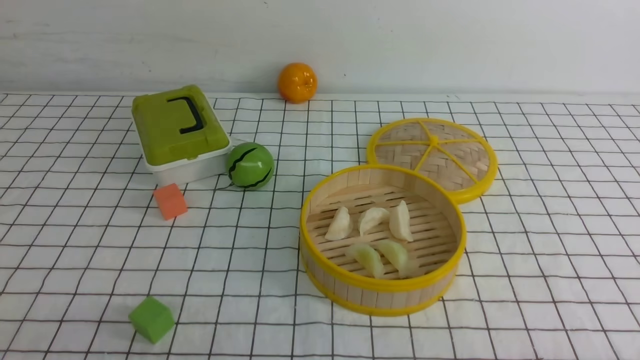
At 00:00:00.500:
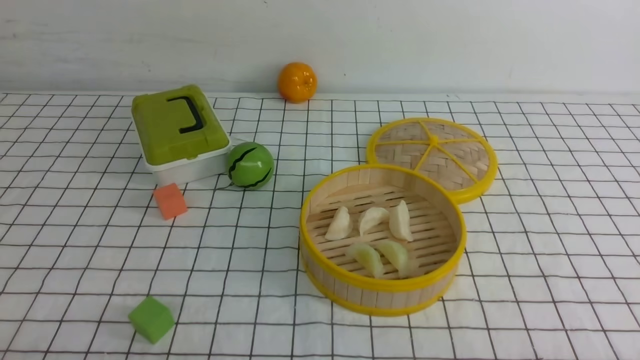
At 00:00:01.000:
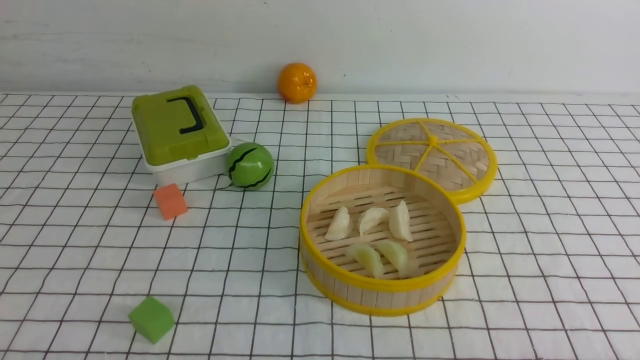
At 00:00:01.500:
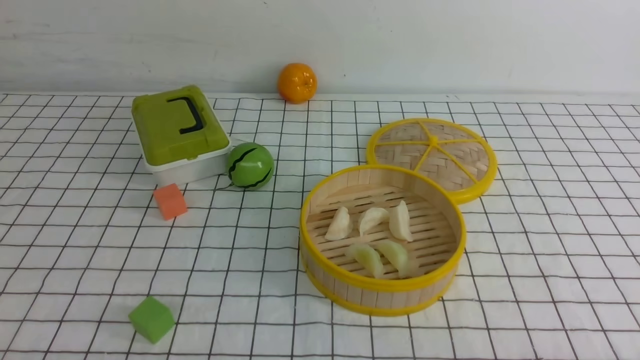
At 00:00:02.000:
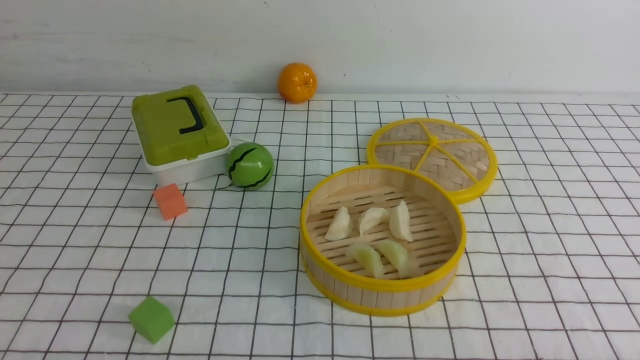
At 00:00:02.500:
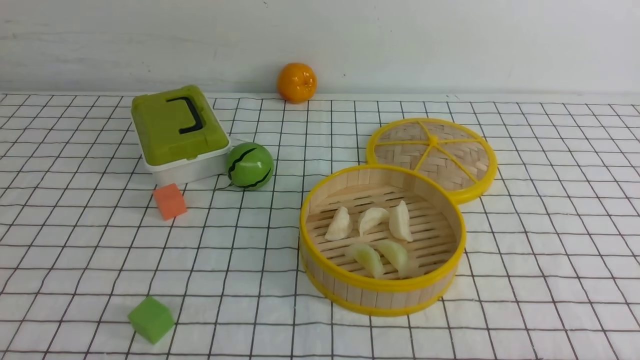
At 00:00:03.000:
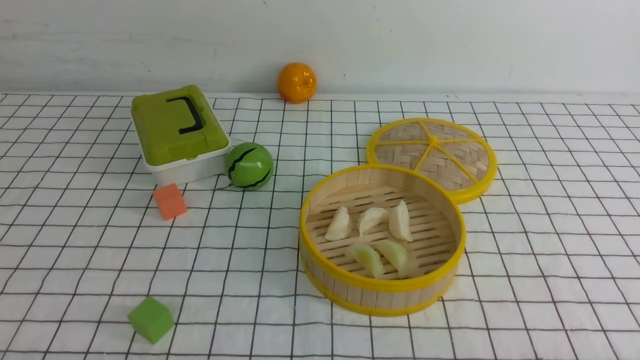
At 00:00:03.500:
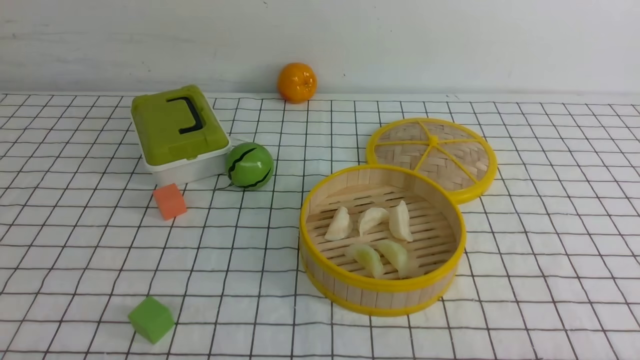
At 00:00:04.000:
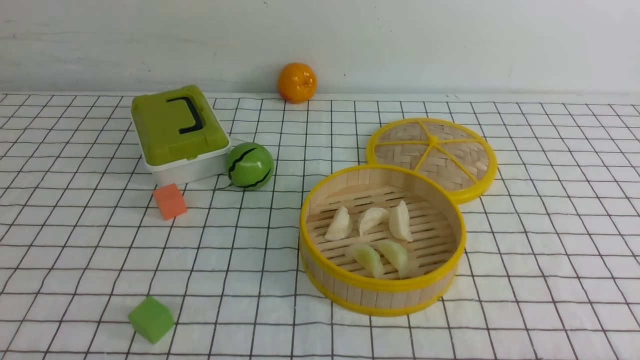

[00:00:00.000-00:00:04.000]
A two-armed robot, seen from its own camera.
Task of the whole recording: put the dumplings into the steamer on the table with the white tablecloth.
00:00:02.000 to 00:00:04.000: Both grippers stay about where they are.

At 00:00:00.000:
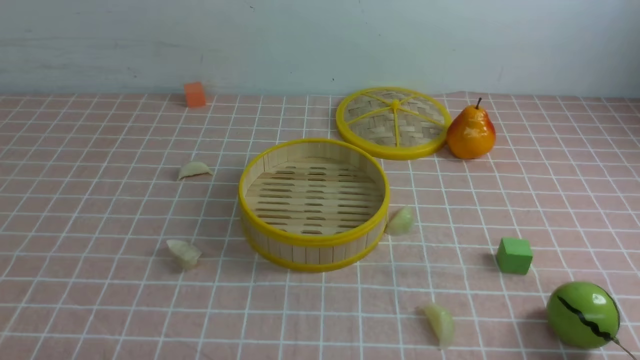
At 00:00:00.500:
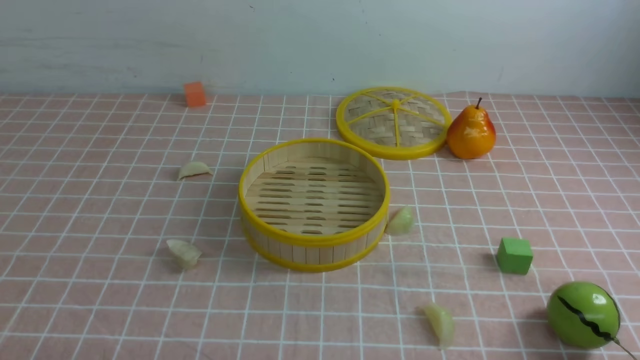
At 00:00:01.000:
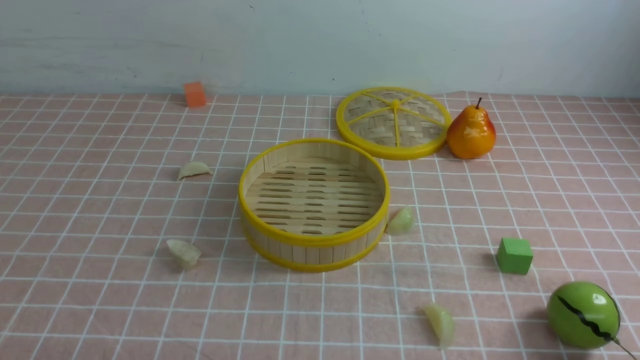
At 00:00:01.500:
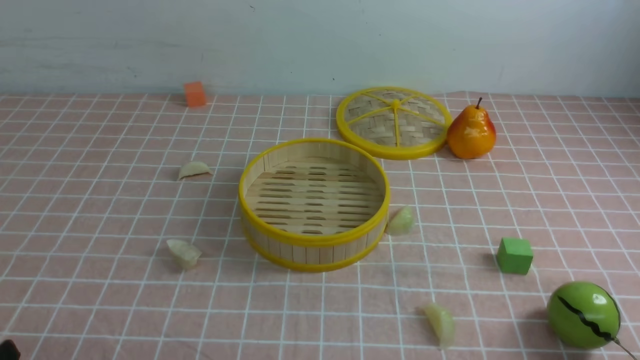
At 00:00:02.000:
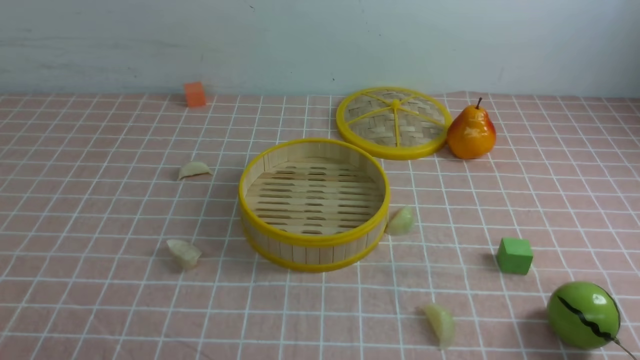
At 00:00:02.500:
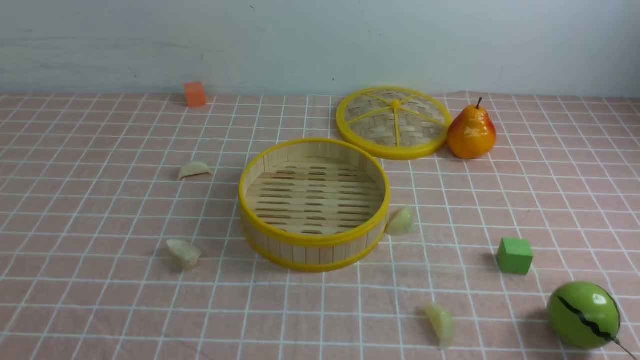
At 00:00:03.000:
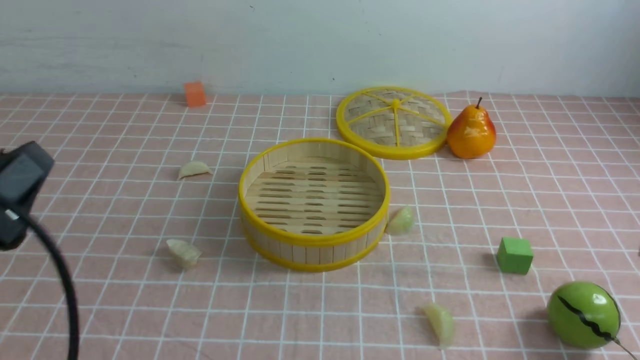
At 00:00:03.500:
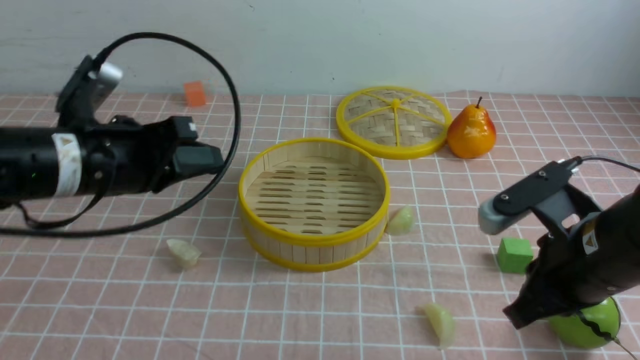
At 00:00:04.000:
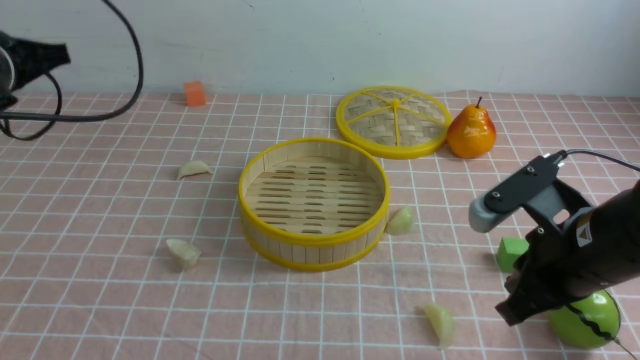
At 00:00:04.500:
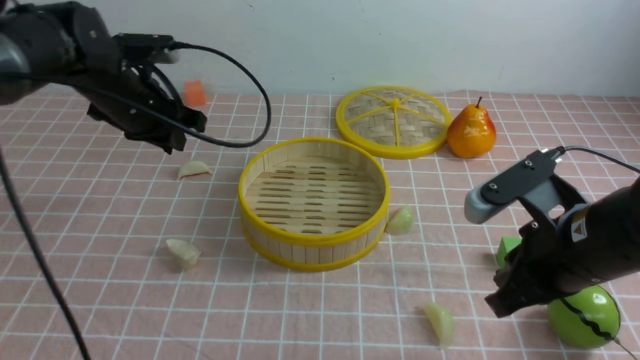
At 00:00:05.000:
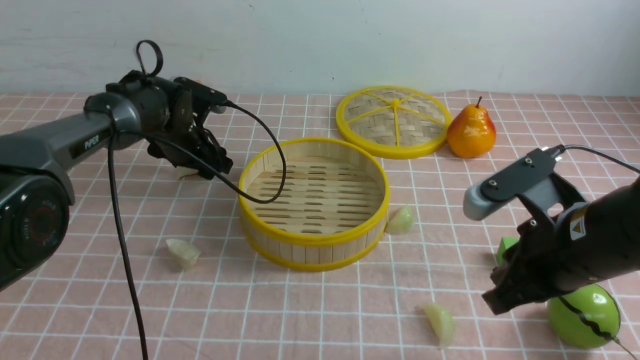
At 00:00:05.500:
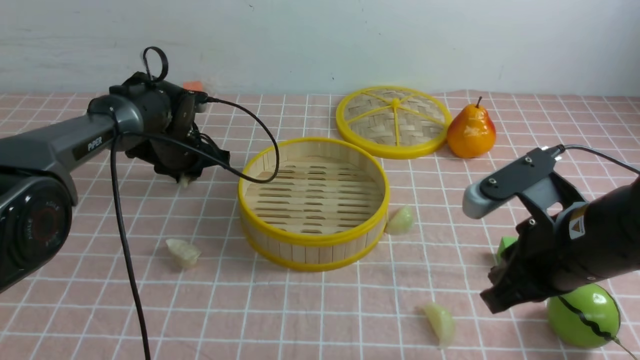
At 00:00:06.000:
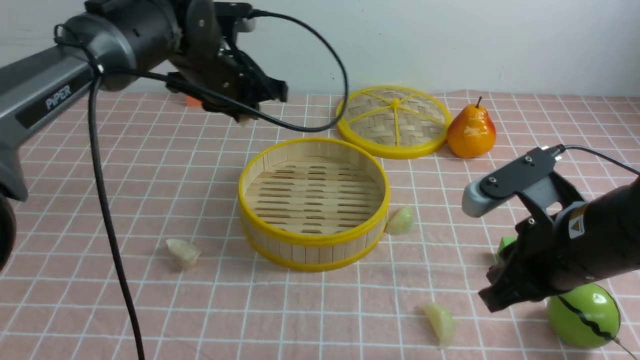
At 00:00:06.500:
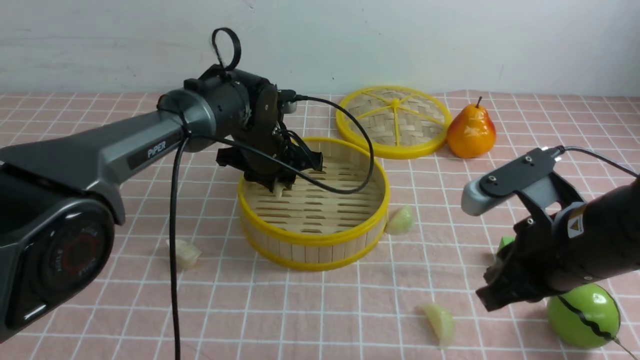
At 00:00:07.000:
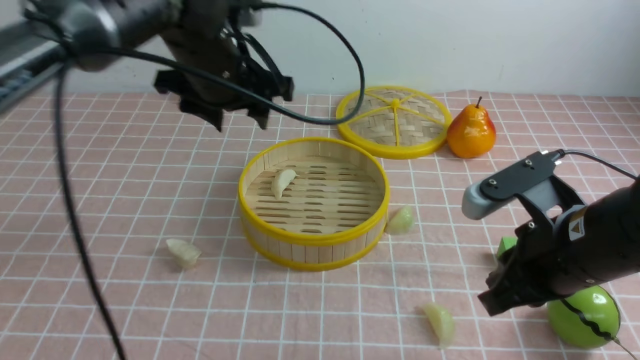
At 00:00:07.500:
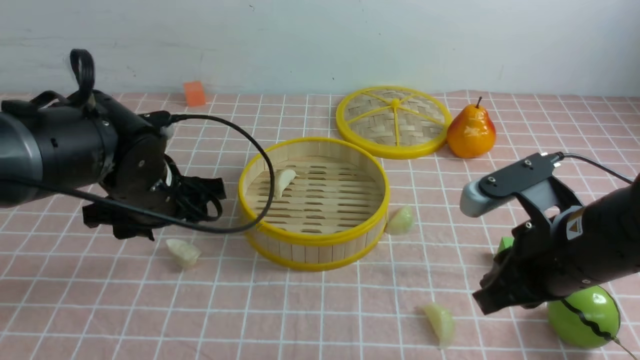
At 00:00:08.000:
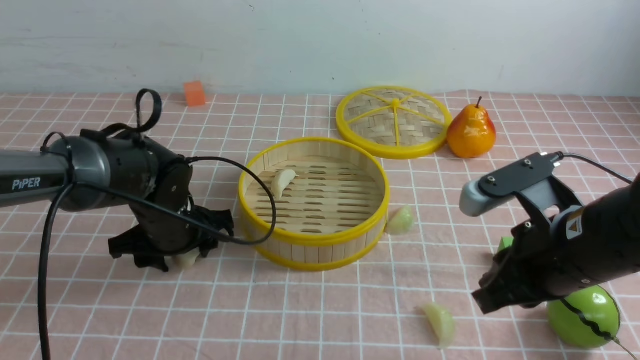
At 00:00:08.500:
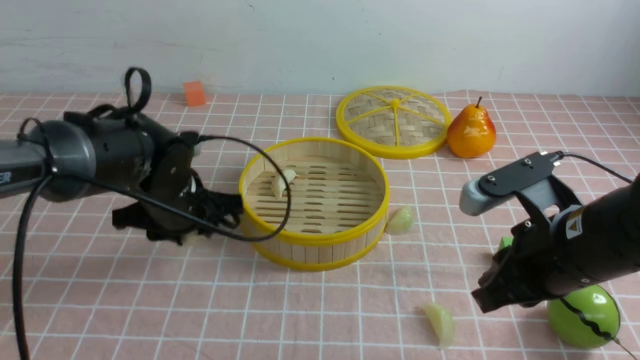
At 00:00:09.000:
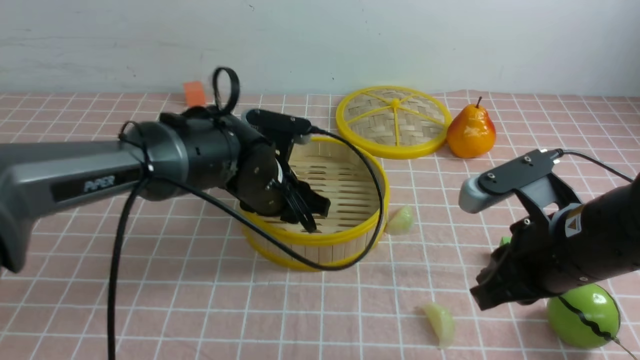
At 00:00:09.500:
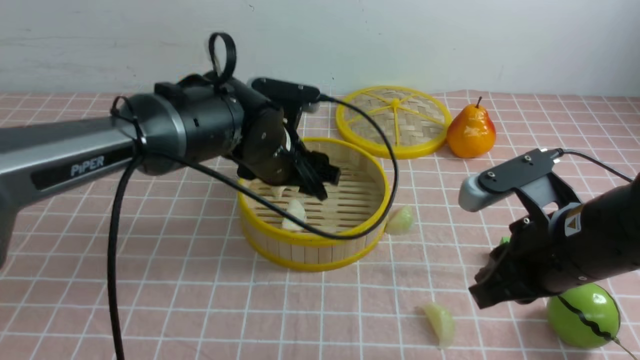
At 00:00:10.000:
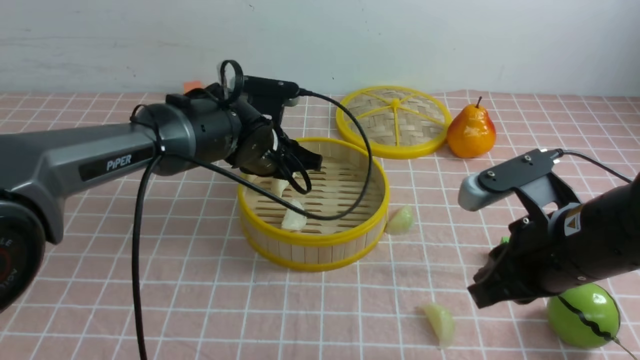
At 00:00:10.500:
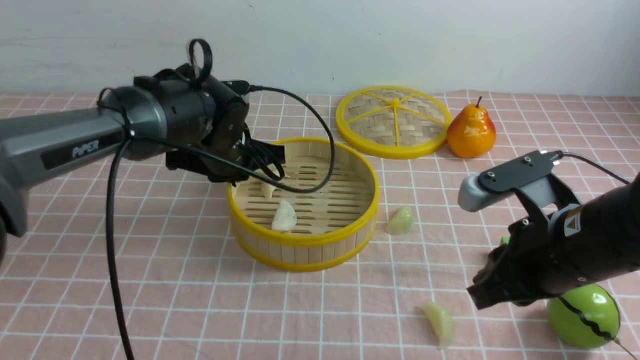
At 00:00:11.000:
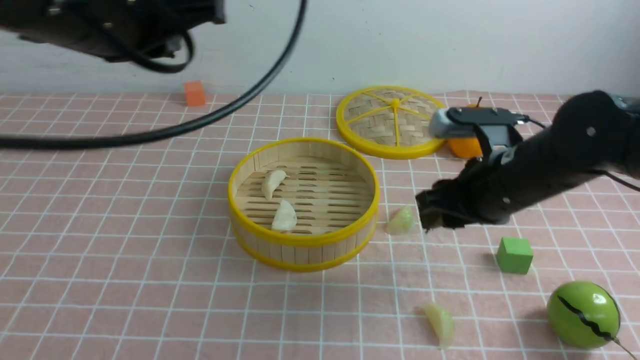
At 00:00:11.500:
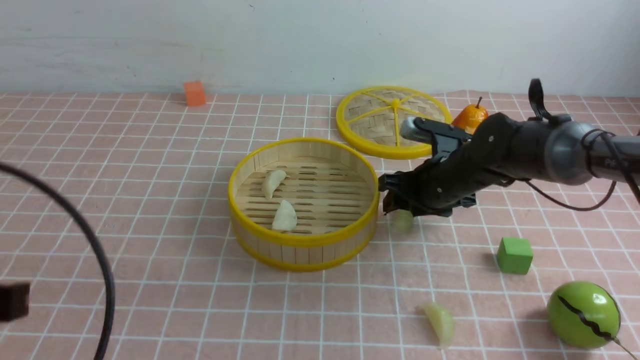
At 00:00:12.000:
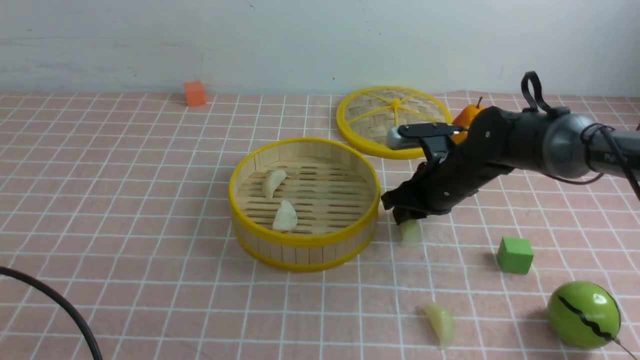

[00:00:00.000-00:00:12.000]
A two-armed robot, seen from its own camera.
Task of the whole recording: put the dumplings into the steamer on the table with the pink tablecloth.
Step, 00:00:00.000 to 00:00:05.500: use the left arm to grab a dumpling.
Step, 00:00:06.000 to 00:00:06.500: use the left arm to put the dumpling into the steamer.
Step, 00:00:07.000 to 00:00:08.000: use the left arm to grab a dumpling.
Step, 00:00:08.500 to 00:00:09.000: use the left arm to put the dumpling into the steamer.
00:00:02.000 to 00:00:04.000: The right gripper heads forward and to the left, covering roughly 20 cm, and closes up; the left gripper is displaced forward by approximately 30 cm, and closes up.
00:00:04.000 to 00:00:06.000: The left gripper shifts about 20 cm to the right and forward, and opens.
00:00:06.000 to 00:00:08.000: The left gripper swings up and down, some 15 cm each way, with 2 reversals, and opens up.
00:00:08.000 to 00:00:10.000: The left gripper shifts approximately 10 cm to the right, forward and upward, and closes up.
00:00:10.000 to 00:00:12.000: The left gripper shifts roughly 35 cm backward and to the left, and closes up, while the right gripper heads forward and downward, covering some 20 cm, and opens, then closes once more.

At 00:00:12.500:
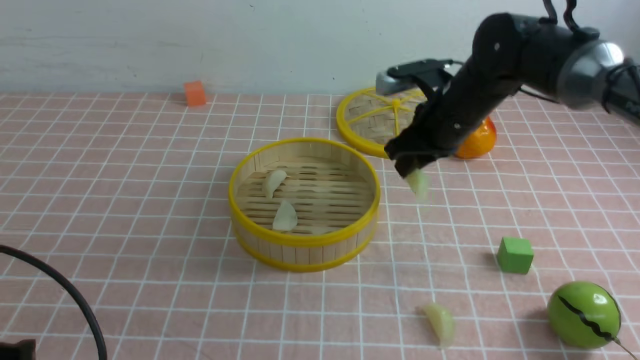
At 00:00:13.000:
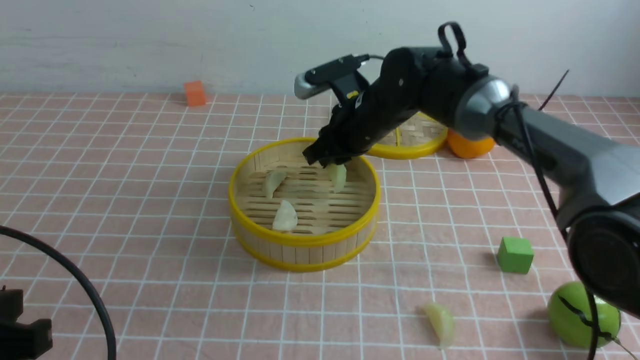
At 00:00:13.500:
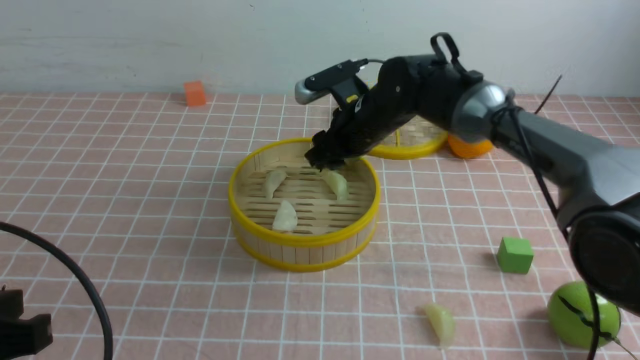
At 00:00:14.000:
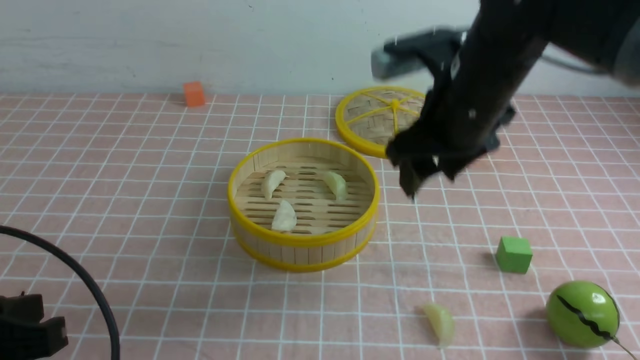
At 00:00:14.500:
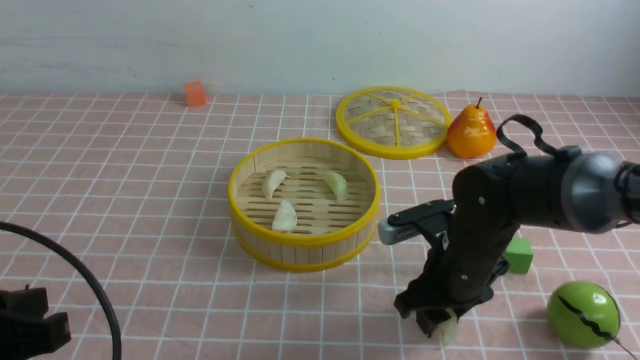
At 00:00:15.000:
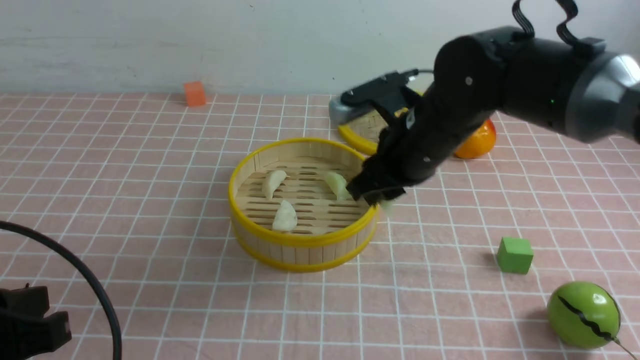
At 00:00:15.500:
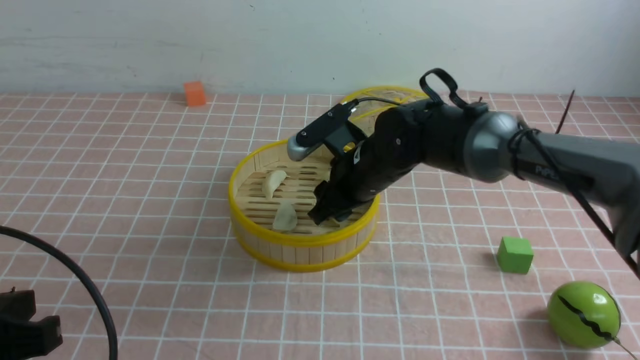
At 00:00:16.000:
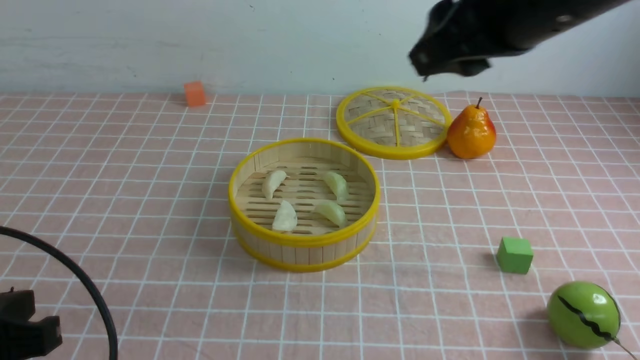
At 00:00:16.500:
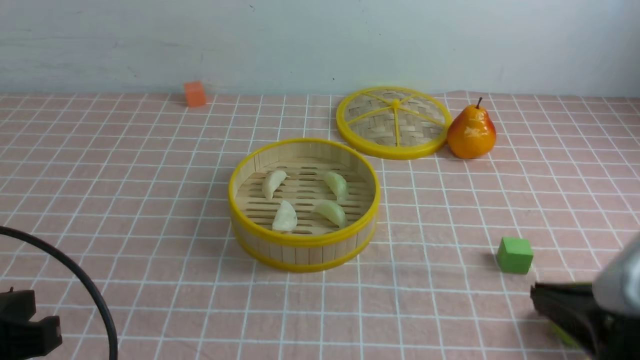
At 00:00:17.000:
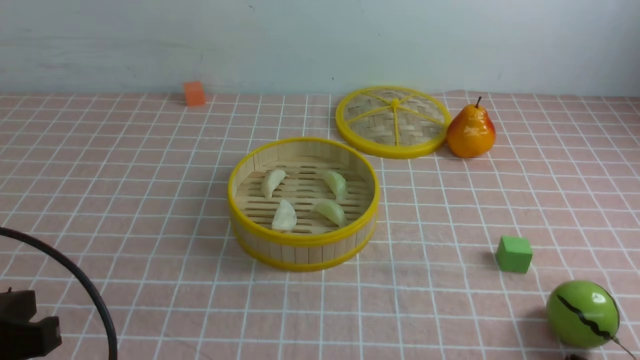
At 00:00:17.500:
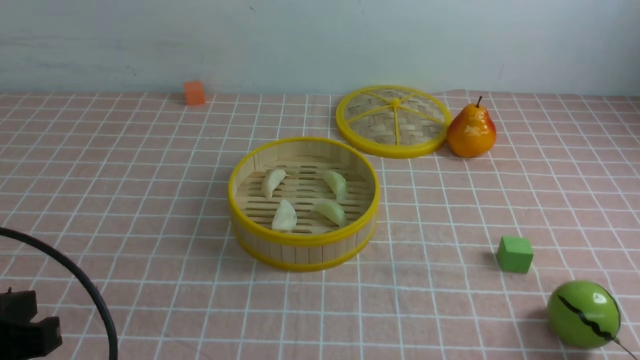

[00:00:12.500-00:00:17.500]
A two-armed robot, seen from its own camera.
Task of the whole recording: put the dumplings into the steamer on the table with the pink tablecloth.
Step, 00:00:12.500 to 00:00:13.000: use the right arm to put the dumpling into the steamer.
Step, 00:00:13.500 to 00:00:14.500: use the right arm to grab a dumpling.
Step, 00:00:15.000 to 00:00:15.500: use the right arm to put the dumpling into the steamer.
00:00:12.500 to 00:00:15.000: The right gripper shifts roughly 10 cm backward, and opens, then closes once more.
00:00:15.000 to 00:00:17.500: The right gripper moves backward and to the right, some 40 cm, and closes its fingers.
